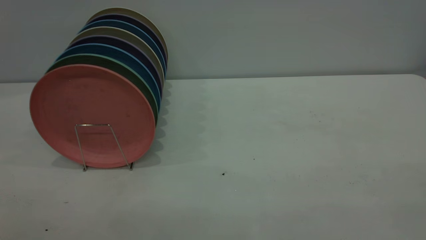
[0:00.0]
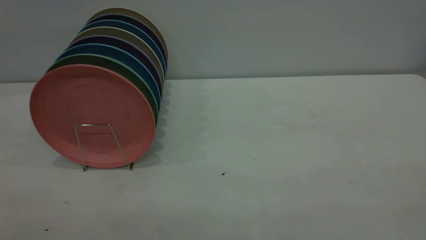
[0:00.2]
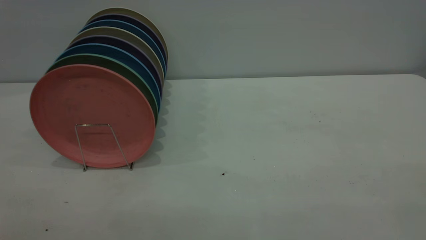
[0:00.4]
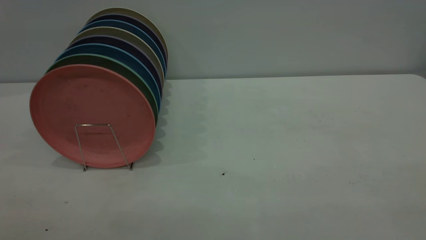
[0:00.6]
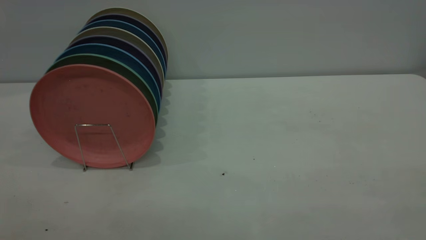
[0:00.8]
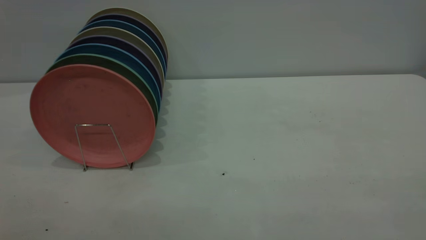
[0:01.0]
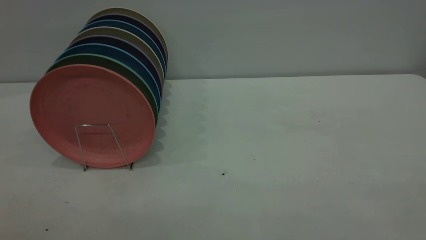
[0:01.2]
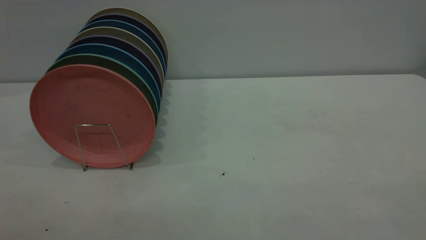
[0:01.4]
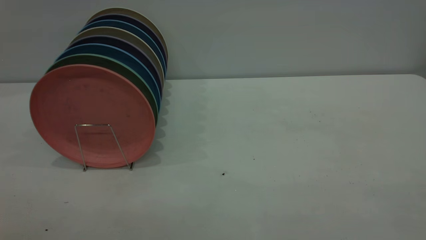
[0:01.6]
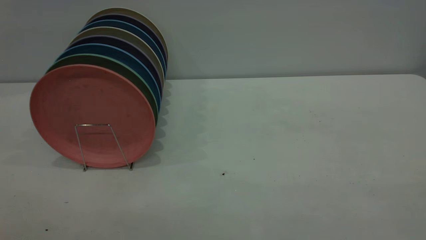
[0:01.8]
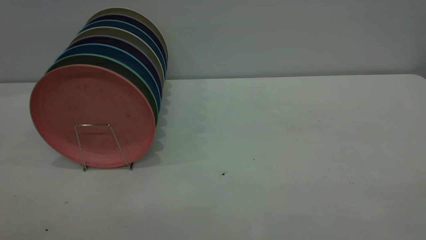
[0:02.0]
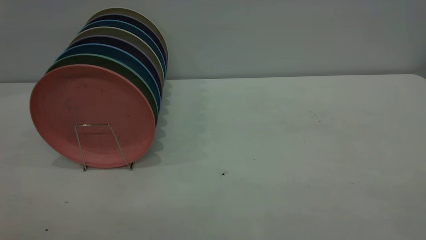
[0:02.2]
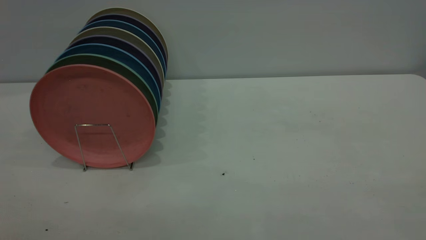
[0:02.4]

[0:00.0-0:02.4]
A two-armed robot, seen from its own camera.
Task of the whole recording: the right gripper grasp the pink plate, the right gripper pass the pink plate to the left gripper, and the left gripper place the pink plate on the plate rack.
0:01.2 to 0:02.4: Both grippers stay about where they are.

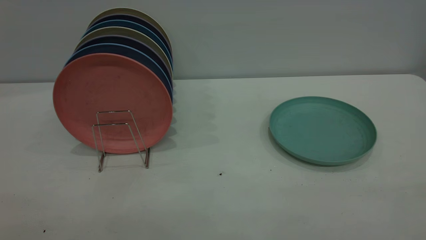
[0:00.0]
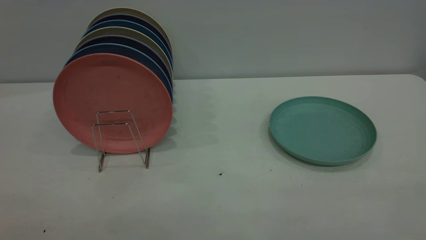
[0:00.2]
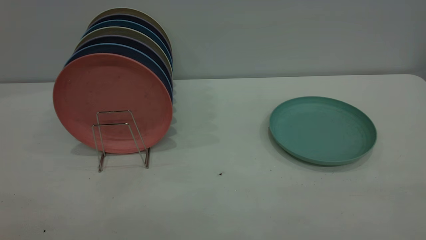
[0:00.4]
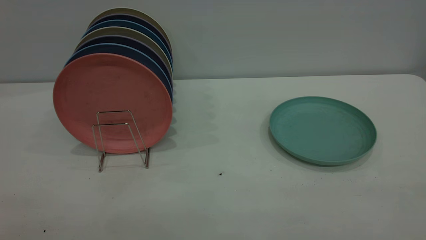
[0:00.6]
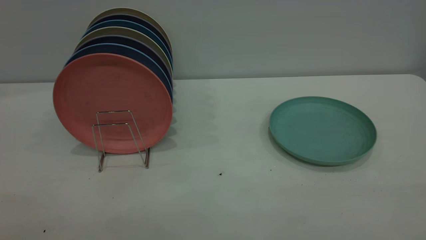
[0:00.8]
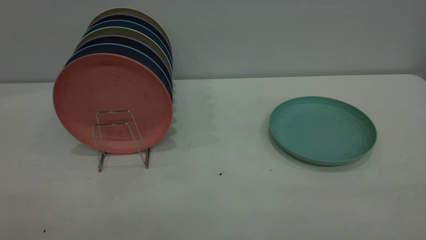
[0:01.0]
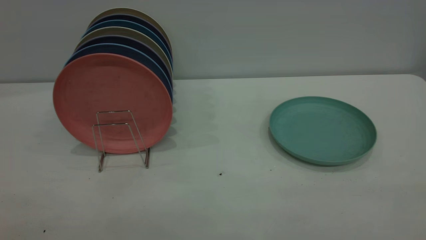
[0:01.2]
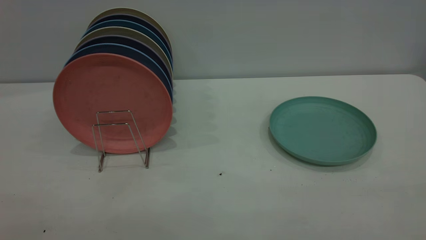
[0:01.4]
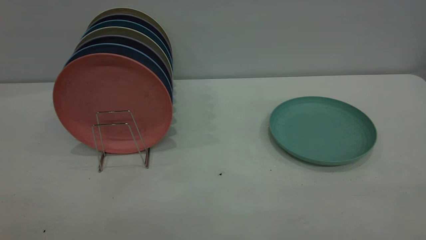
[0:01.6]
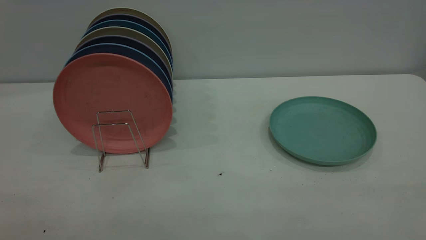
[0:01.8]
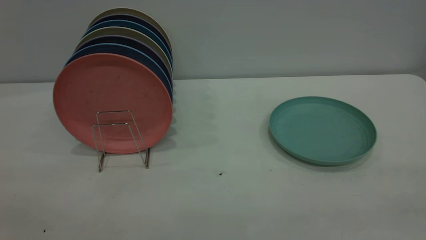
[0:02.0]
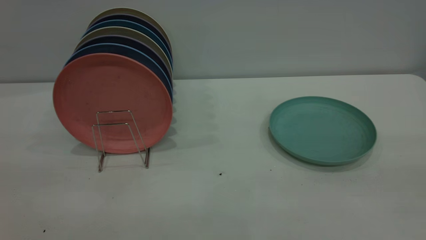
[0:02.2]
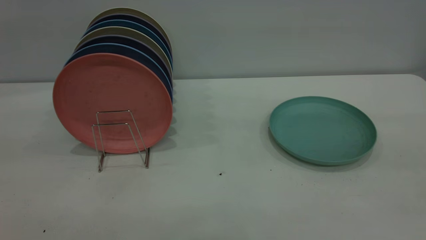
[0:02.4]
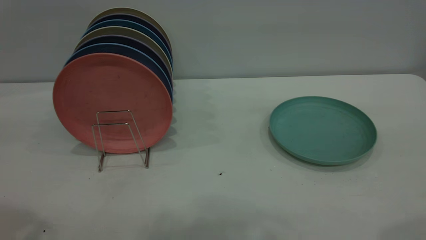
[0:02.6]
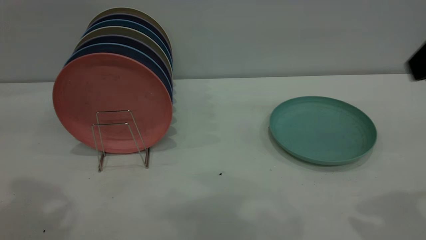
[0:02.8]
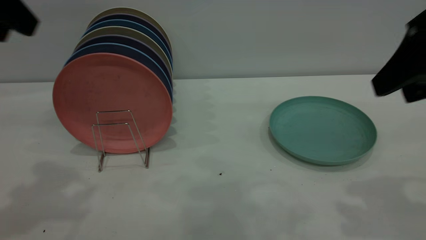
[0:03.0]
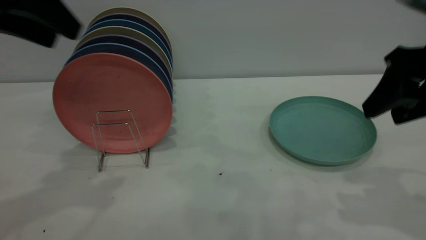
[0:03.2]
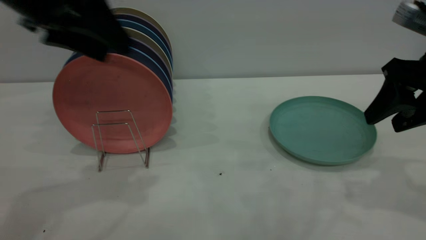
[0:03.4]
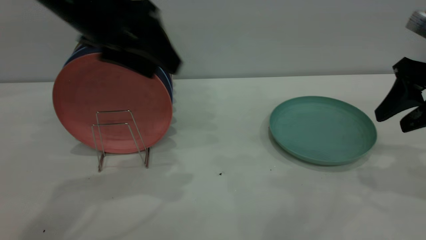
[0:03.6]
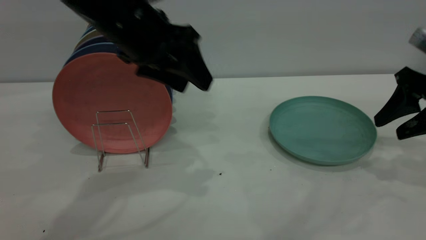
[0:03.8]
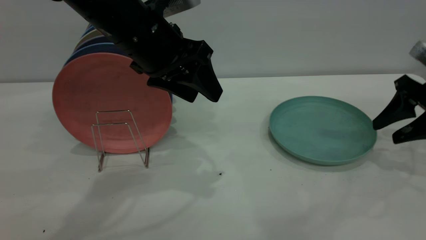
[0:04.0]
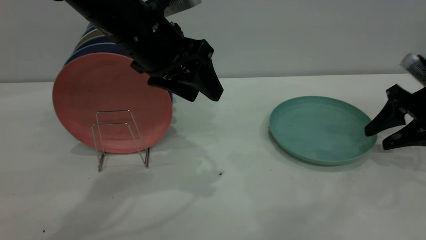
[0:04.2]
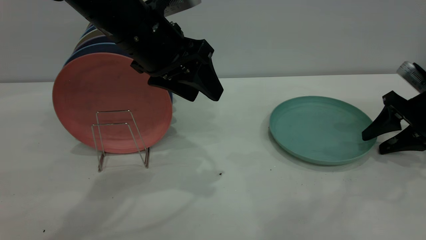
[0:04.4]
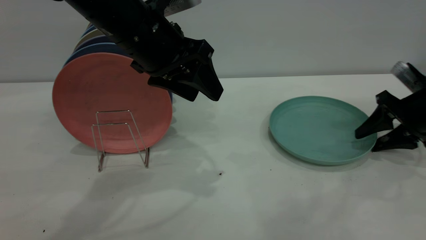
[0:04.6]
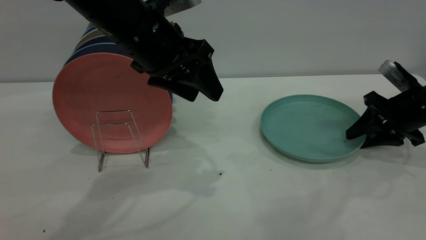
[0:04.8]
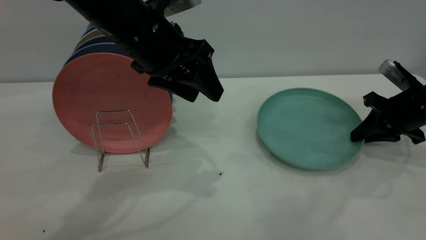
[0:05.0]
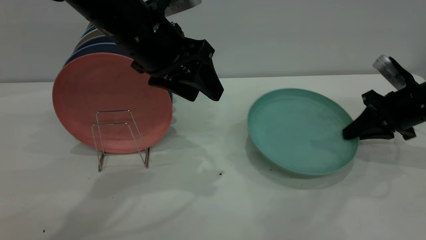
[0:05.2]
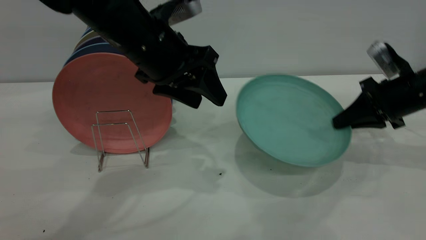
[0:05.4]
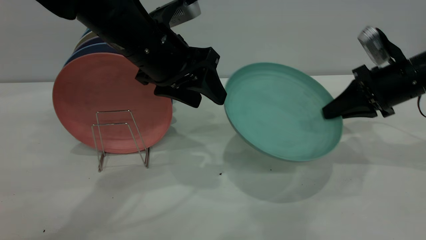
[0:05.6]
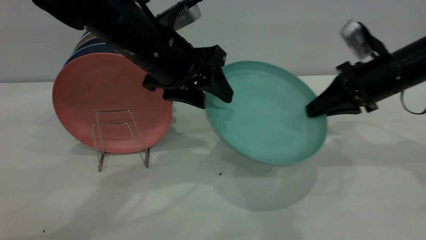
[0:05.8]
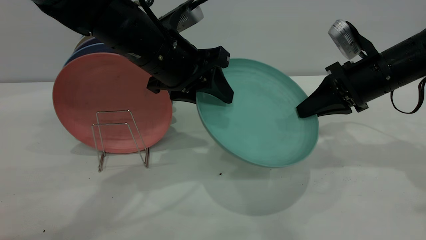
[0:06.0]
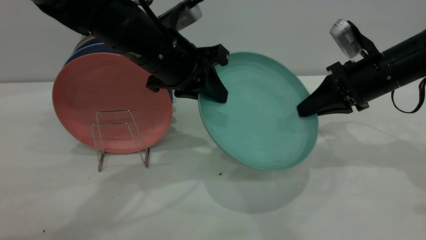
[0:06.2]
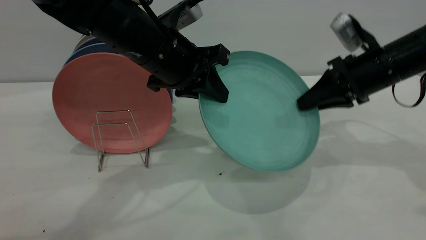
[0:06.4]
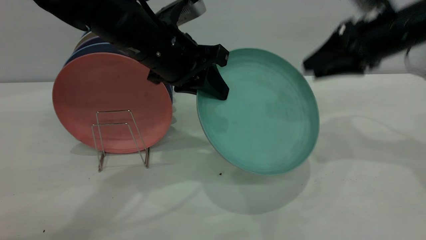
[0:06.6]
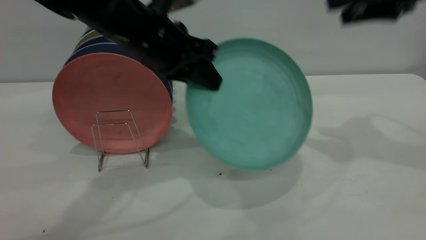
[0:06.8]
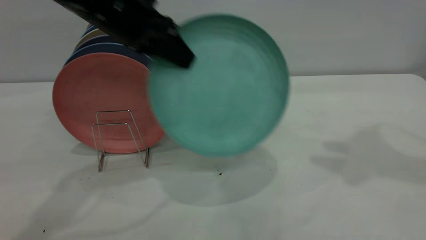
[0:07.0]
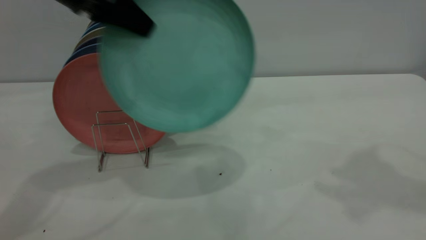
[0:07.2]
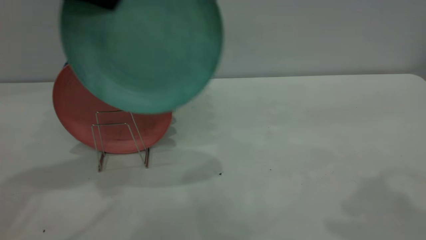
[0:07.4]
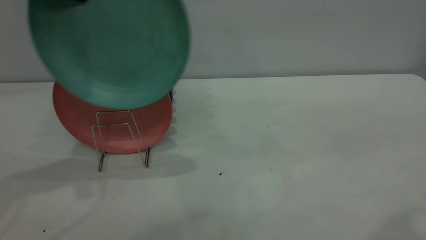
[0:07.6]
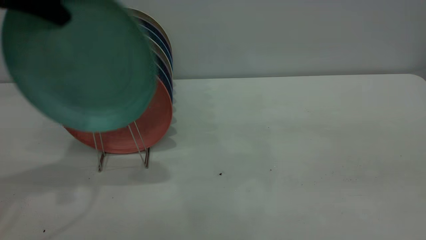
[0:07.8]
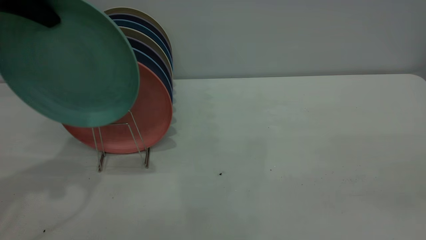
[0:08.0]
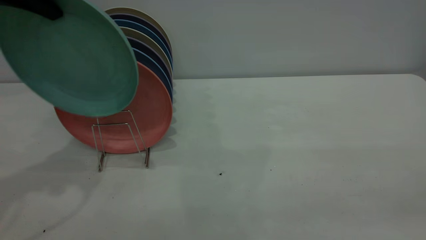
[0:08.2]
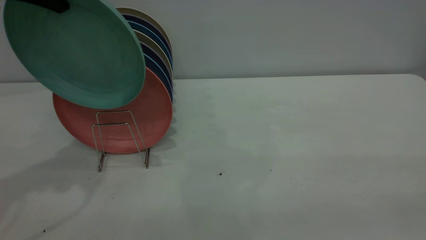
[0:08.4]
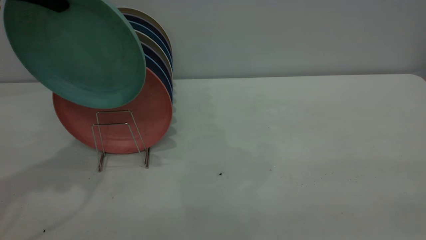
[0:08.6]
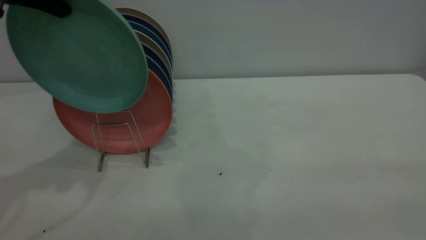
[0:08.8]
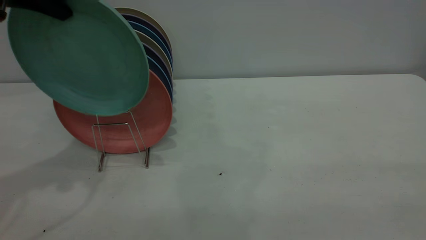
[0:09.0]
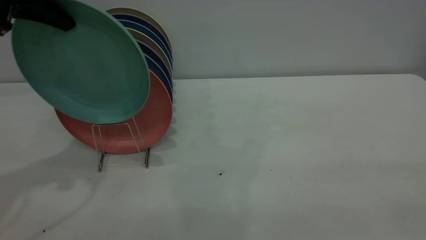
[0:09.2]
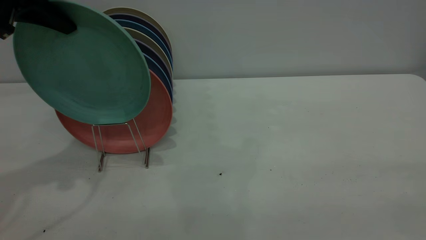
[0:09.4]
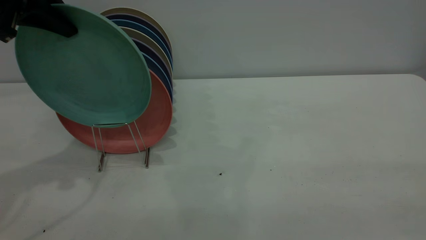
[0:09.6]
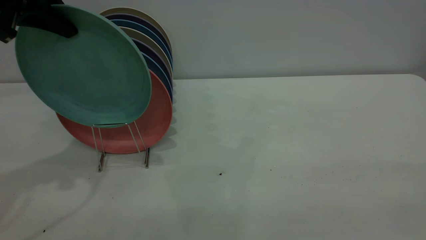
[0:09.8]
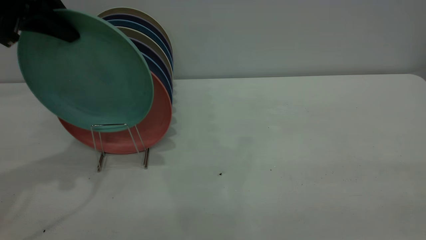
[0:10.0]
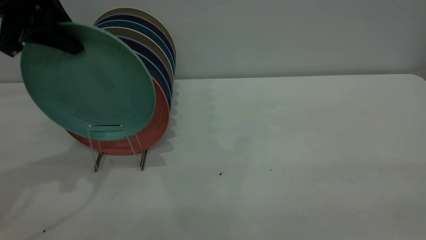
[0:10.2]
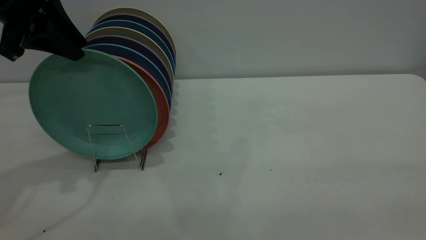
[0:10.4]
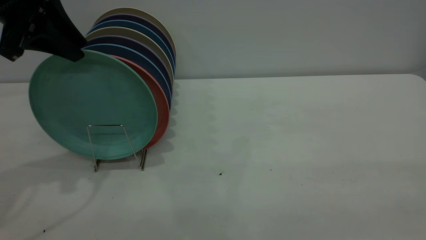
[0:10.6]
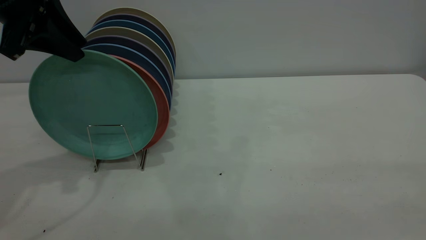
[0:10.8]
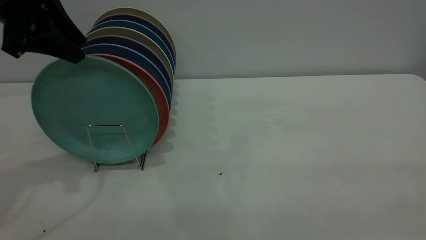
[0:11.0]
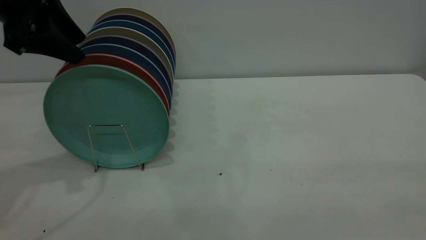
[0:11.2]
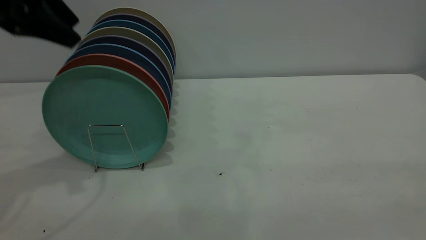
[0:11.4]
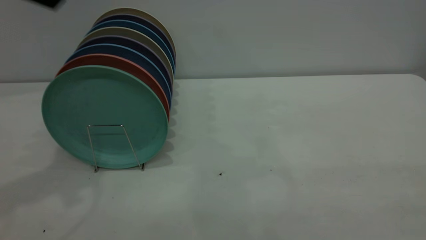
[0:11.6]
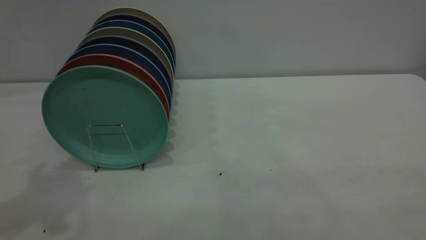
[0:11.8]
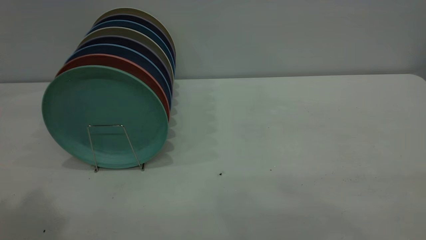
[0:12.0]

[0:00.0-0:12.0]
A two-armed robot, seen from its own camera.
Task of the whole recording: the right gripper grasp the green plate, the right gripper pass the green plate to the left gripper, and the left gripper place the green plate on the plate rack.
Step, 0:00.0 to 0:05.2: Pick up the plate with the right gripper.
Step, 0:05.4 to 0:06.4: Pass the plate from the right gripper to the left gripper.
Step, 0:06.8 to 0:11.2: Place the plate on the shelf.
0:00.0 to 0:01.6: The two grippers keep their place.
0:01.6 to 0:03.0: Both grippers move forward, roughly 30 cm. The right gripper opens up.
0:03.0 to 0:04.4: The right gripper travels downward, forward and to the right by about 25 cm, while the left gripper heads to the right, downward and forward, covering some 20 cm.
0:04.4 to 0:06.0: The right gripper is displaced to the left and upward by roughly 15 cm, and closes its fingers. The left gripper closes up.
0:06.0 to 0:07.6: The right gripper is displaced backward and upward by about 35 cm, and opens its fingers; the left gripper heads to the left and upward, covering about 25 cm, and closes.
0:07.6 to 0:09.0: The right gripper is displaced backward by roughly 15 cm.
0:09.0 to 0:10.4: The left gripper opens up.
0:10.4 to 0:12.0: The left gripper heads upward and backward, covering about 25 cm, and opens.

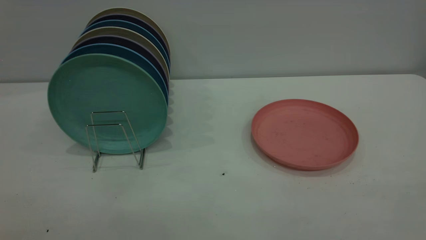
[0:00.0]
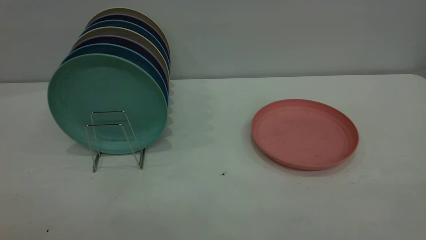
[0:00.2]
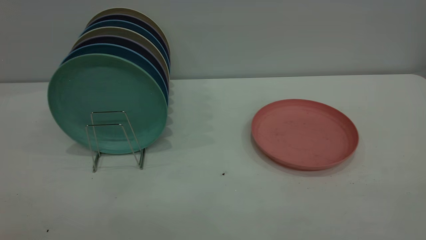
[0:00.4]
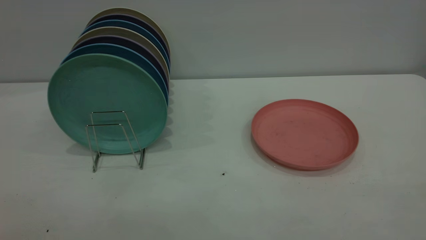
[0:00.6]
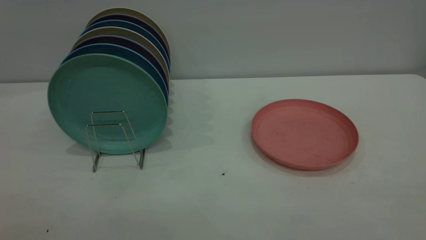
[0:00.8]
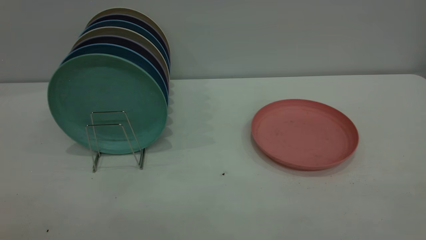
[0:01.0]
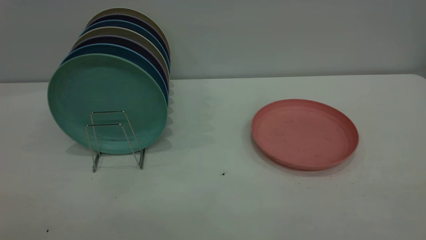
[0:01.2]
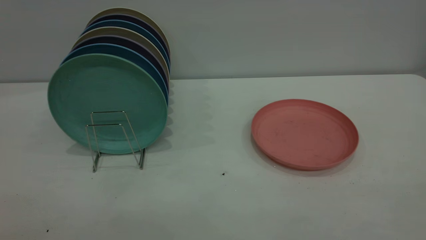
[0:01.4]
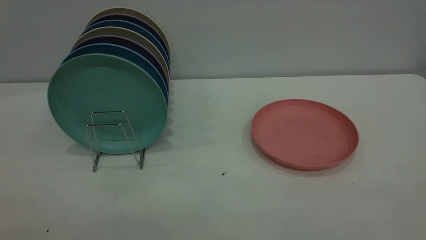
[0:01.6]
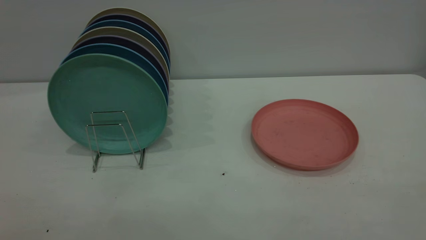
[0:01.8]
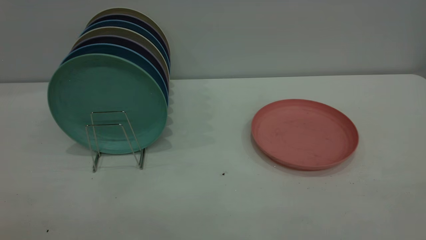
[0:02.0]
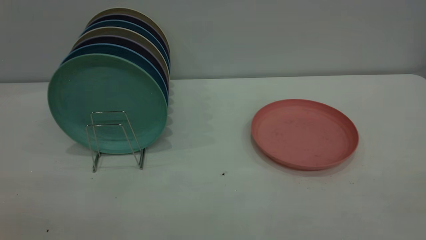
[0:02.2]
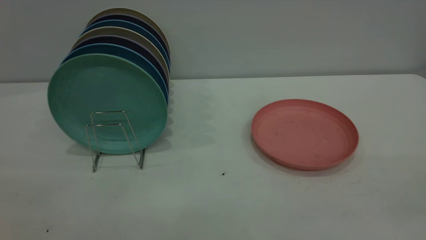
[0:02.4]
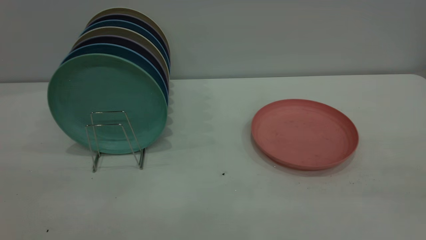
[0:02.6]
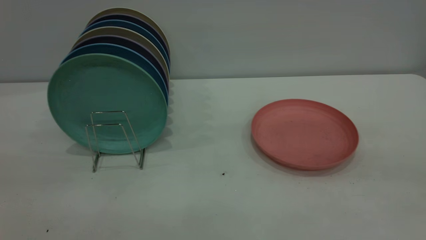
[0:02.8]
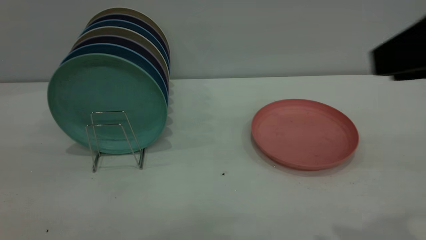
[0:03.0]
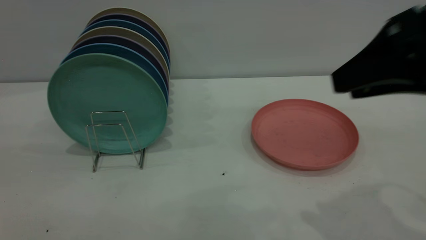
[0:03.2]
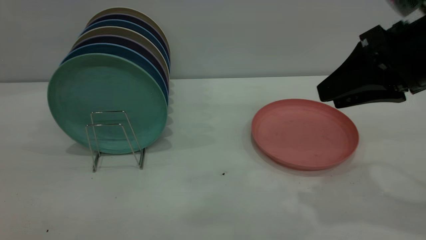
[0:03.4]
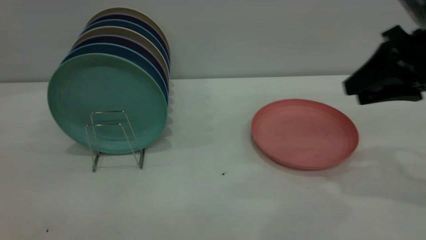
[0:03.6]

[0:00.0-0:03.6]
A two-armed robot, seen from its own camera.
Task of the whole recording: the right gripper grasp the pink plate, the right gripper pass the pink plate to the left gripper, and the left gripper place the pink plate on the plate rack.
0:00.0 to 0:01.8: Both grippers stay put.
0:01.8 to 0:03.6: The right gripper is displaced forward by some 35 cm.
